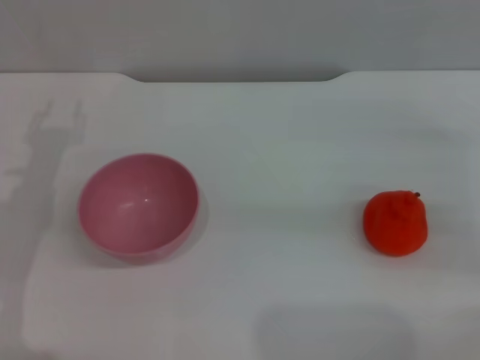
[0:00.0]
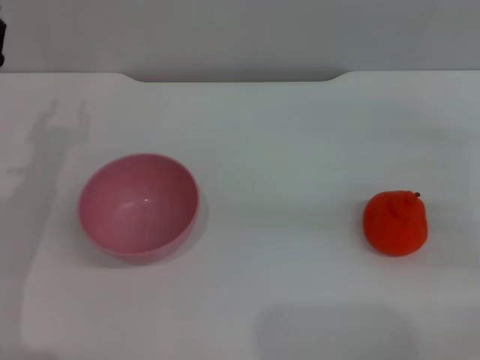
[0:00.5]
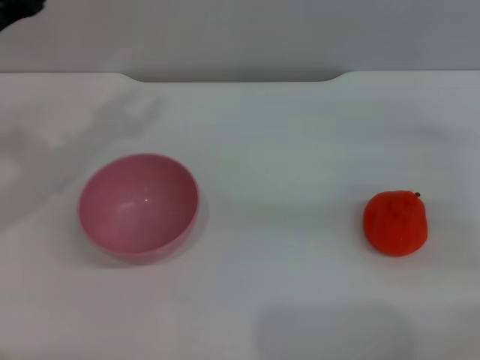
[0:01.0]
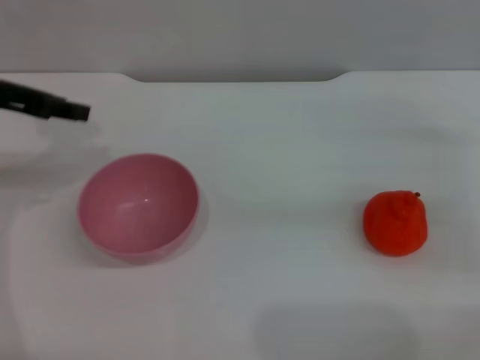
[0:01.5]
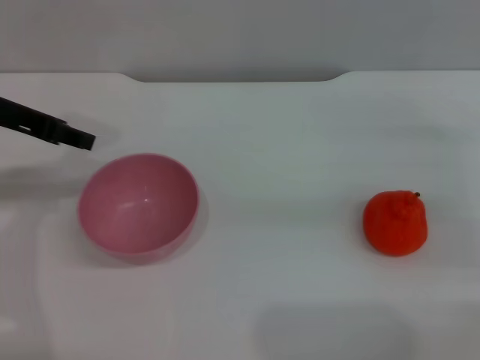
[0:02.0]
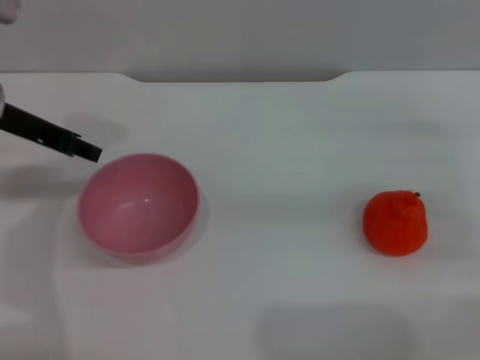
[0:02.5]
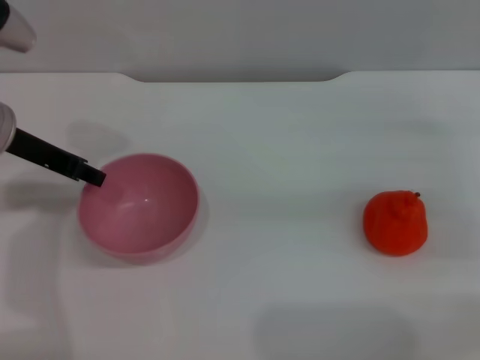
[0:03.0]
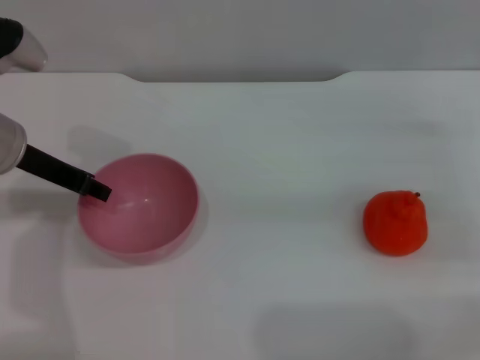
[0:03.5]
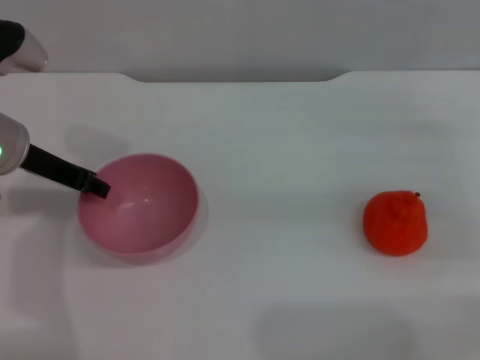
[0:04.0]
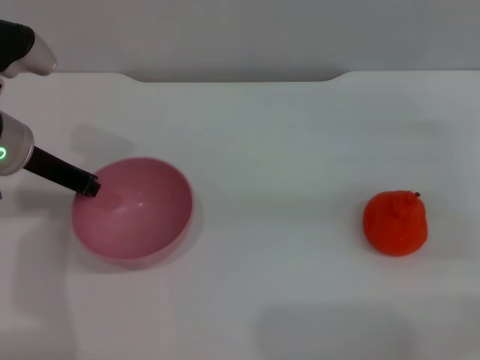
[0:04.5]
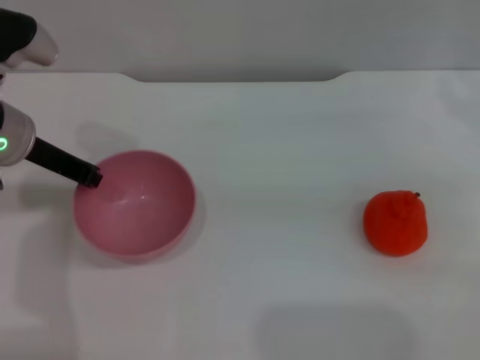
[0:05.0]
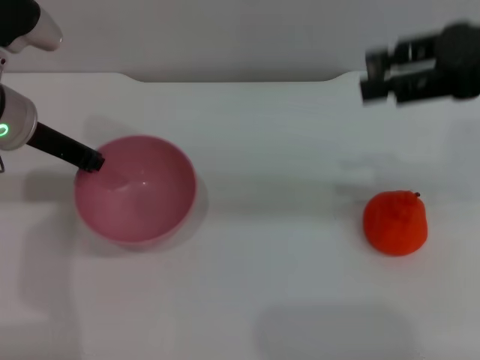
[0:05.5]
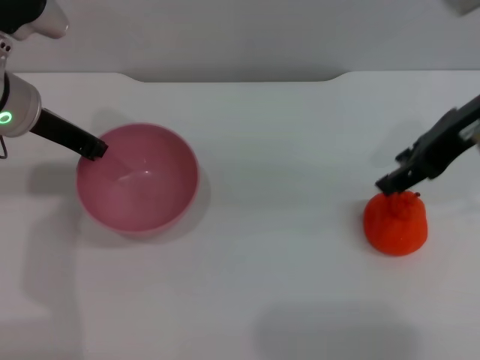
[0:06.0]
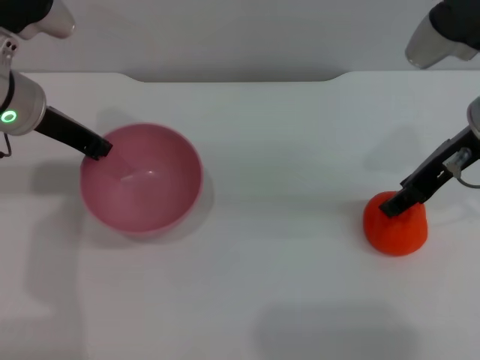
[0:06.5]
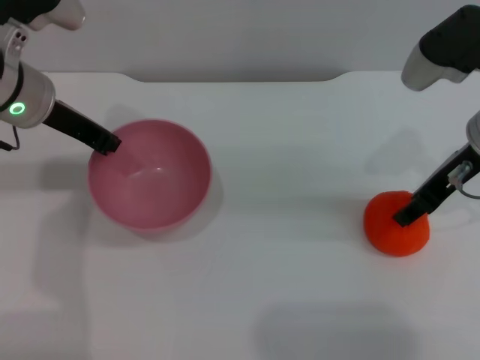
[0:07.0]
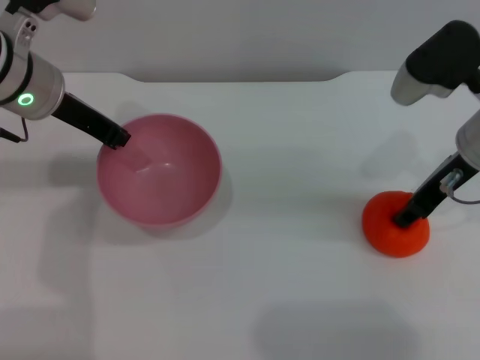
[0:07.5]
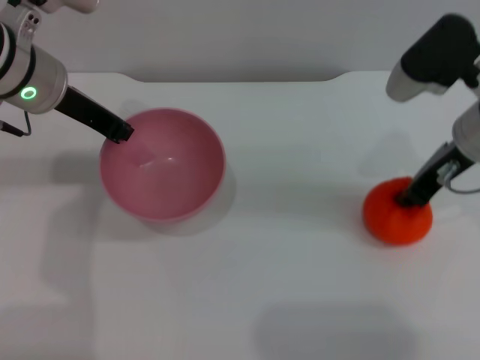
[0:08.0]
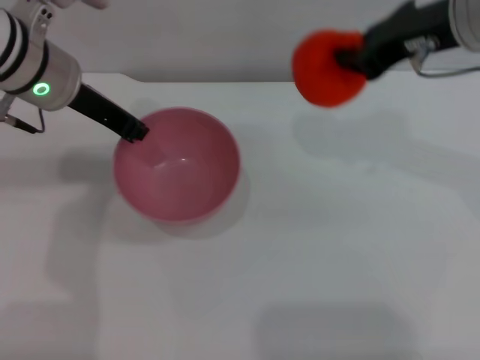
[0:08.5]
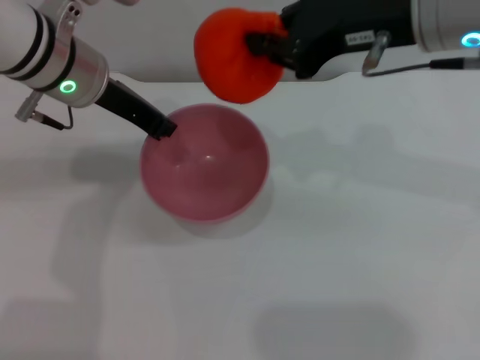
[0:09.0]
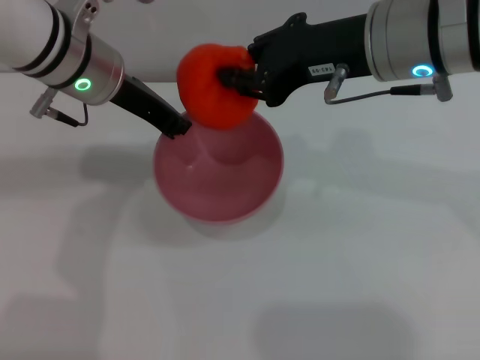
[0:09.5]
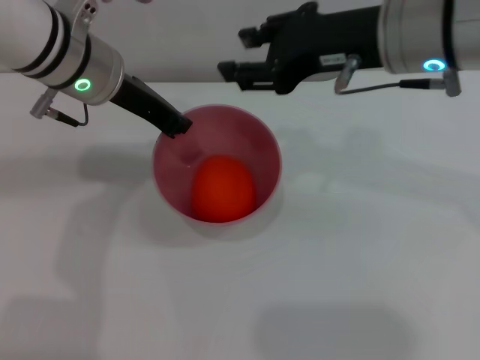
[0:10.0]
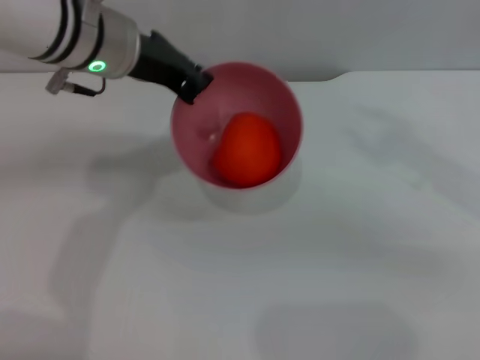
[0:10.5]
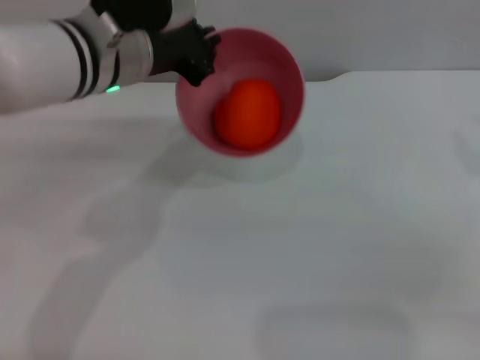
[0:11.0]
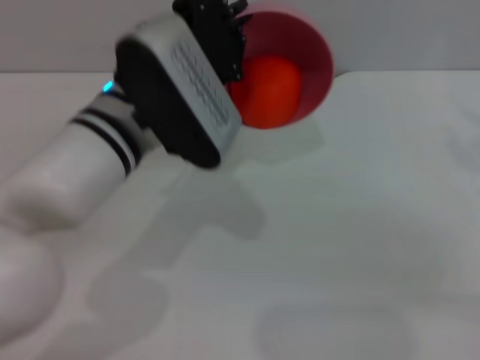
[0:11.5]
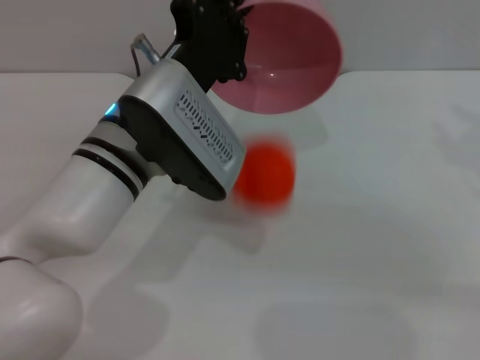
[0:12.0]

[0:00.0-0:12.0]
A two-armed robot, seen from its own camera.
Task of the whole recording: put the orange into the pink bowl and pour it out repeatedly.
Step, 0.0 to 5.5 s: Pick up the bowl with the left gripper.
Step, 6.0 to 8.0 s: Pick up the orange with the right gripper.
Step, 8.5 to 9.5 s: Place the orange into the bowl.
0.0 to 2.0 s: The left gripper is displaced upward by some 15 cm.
2.0 to 4.0 s: The left gripper goes some 5 cm downward.
4.0 to 6.0 s: The left gripper closes its fingers. Meanwhile the right gripper travels upward and to the left by about 20 cm.
6.0 to 8.0 s: The right gripper moves downward, about 10 cm, and closes up.
8.0 to 10.0 s: The right gripper moves upward and to the left, some 10 cm, and opens up.
10.0 to 12.0 s: The right gripper shifts some 15 cm to the right; the left gripper heads backward, to the right and downward, covering approximately 10 cm.

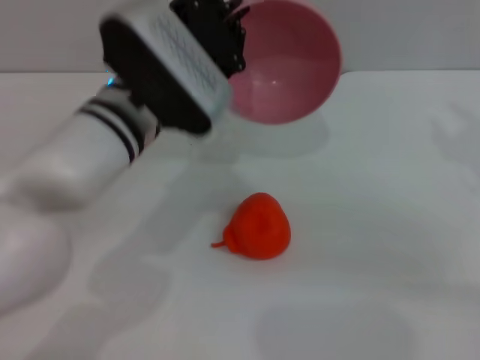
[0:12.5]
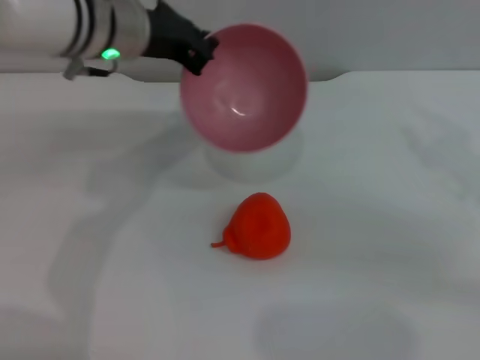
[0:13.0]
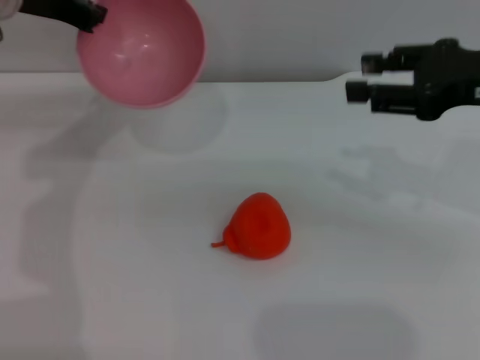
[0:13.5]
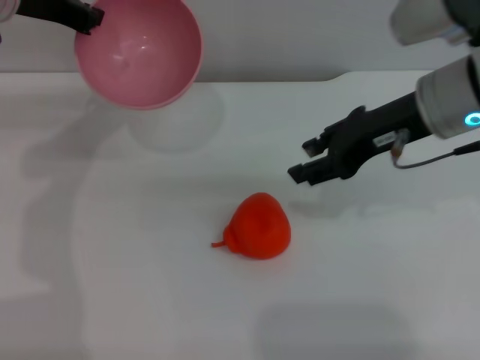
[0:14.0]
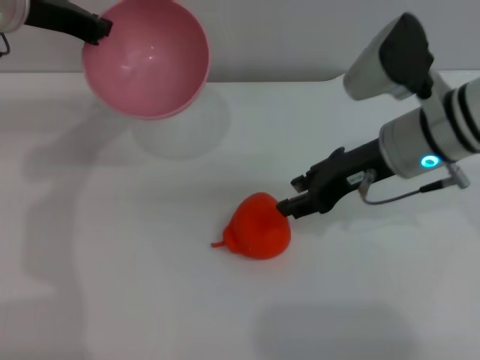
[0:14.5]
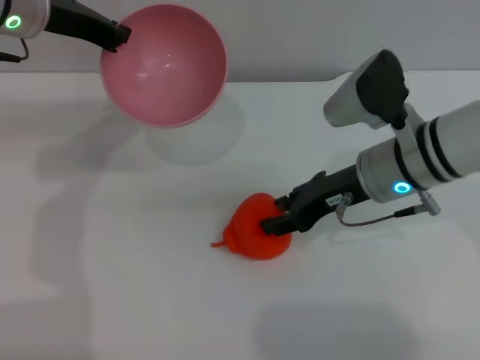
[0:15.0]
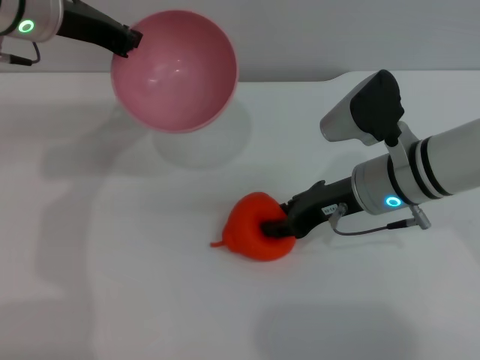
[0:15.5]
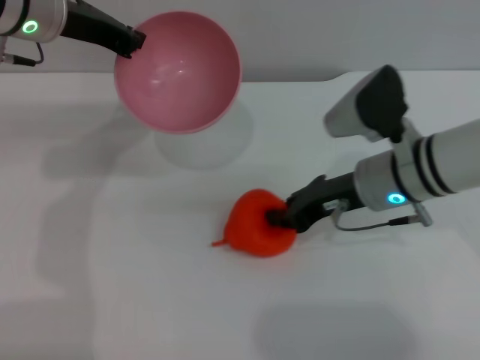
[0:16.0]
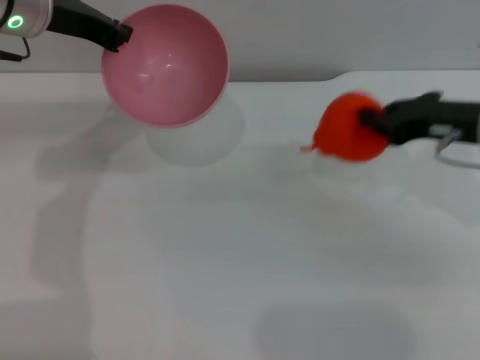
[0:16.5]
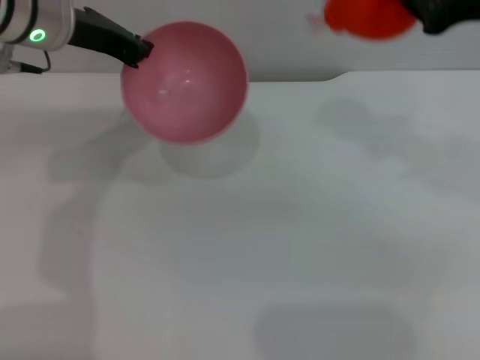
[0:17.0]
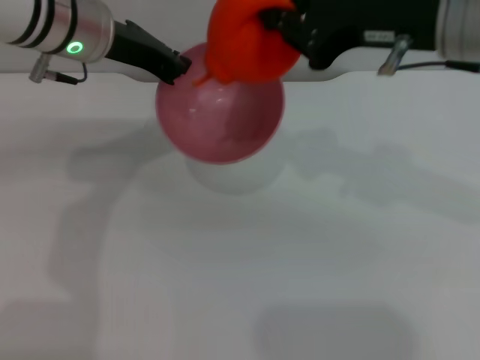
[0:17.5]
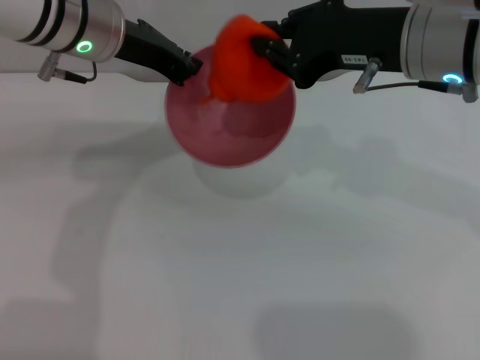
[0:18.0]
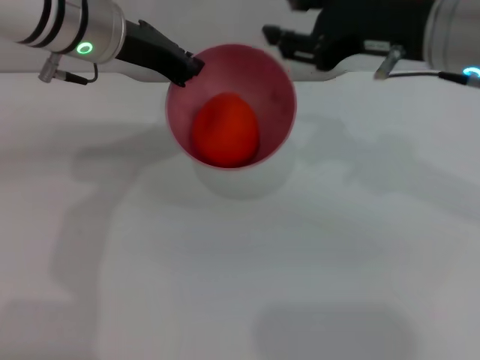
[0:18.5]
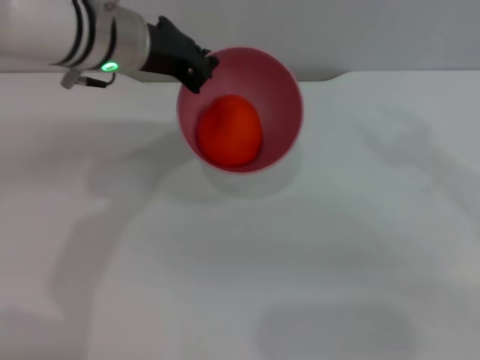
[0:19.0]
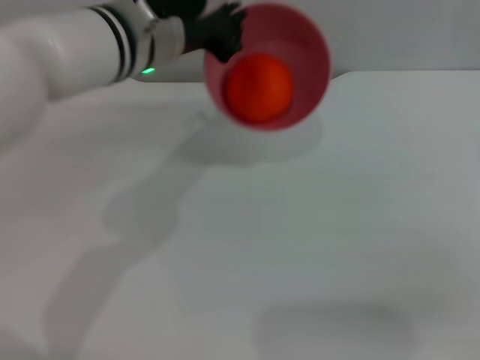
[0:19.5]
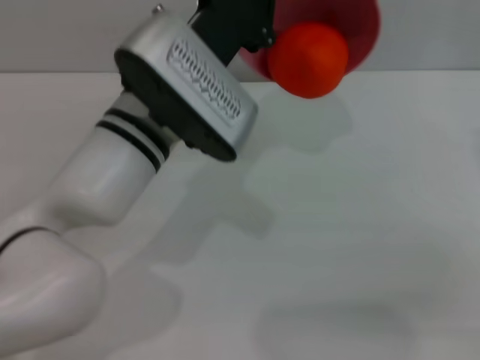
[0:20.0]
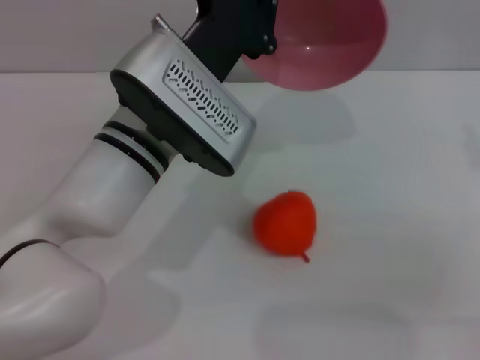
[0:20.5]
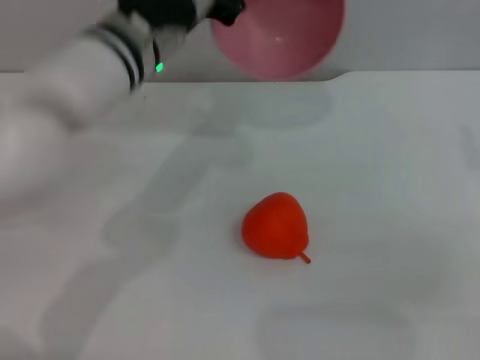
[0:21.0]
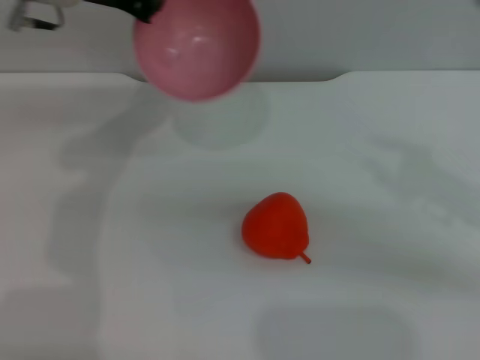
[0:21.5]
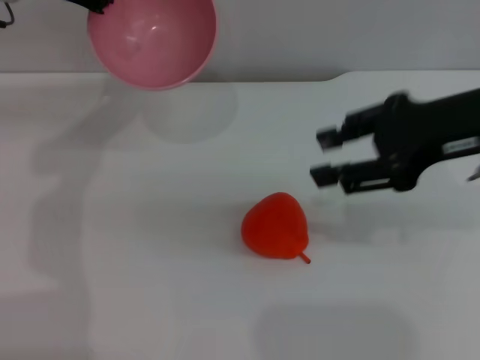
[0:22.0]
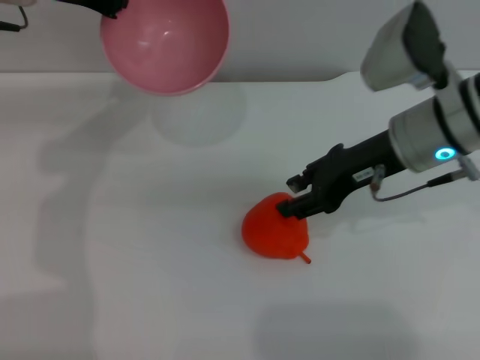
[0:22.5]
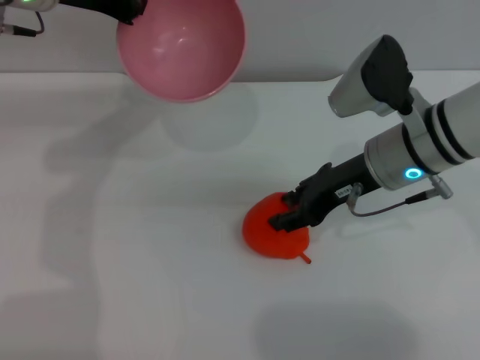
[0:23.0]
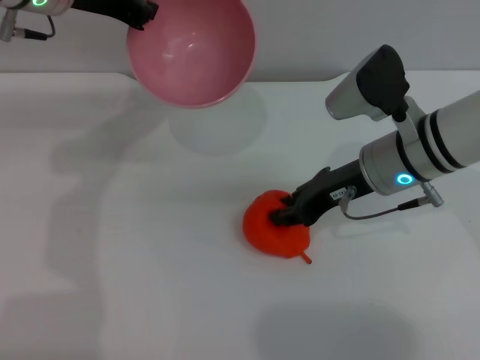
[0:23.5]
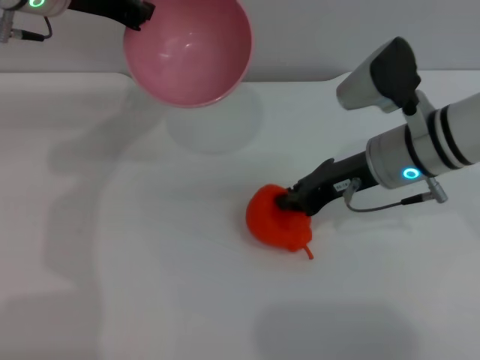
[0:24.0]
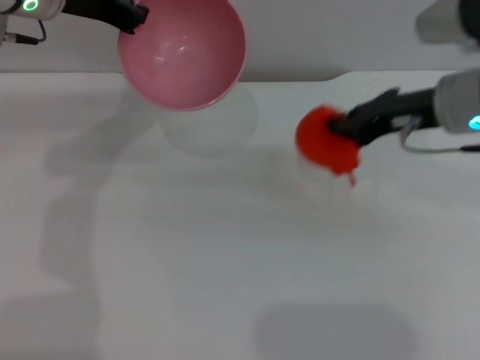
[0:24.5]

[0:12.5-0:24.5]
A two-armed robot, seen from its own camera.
Task of the whole recording: put the orange into the pink bowl and pour it out repeatedly.
Step, 12.5 to 16.0 s: Pick up the orange with the right gripper.
Step, 16.5 to 18.5 s: Place the orange into the bowl.
Step, 19.0 to 20.5 s: Pour the orange out of the bowl.
Step, 21.0 to 24.0 s: Pick up the orange with the right gripper.
12.5 to 14.5 s: The left gripper heads to the left, forward and upward, covering some 20 cm, while the right gripper is displaced to the left and forward by about 15 cm.
14.5 to 16.5 s: The right gripper travels to the right by approximately 10 cm, and closes its fingers.
16.5 to 18.5 s: The left gripper is displaced to the right by roughly 5 cm; the right gripper shifts roughly 10 cm upward and to the left, and opens its fingers.
18.5 to 20.5 s: The right gripper travels to the right, downward and backward by roughly 15 cm; the left gripper moves backward, to the right and downward, about 15 cm.
20.5 to 22.5 s: The left gripper travels to the left, forward and upward by approximately 20 cm, while the right gripper travels to the left and forward by roughly 15 cm.
22.5 to 24.5 s: The right gripper closes up.

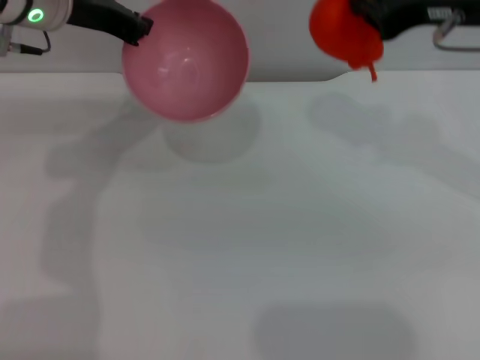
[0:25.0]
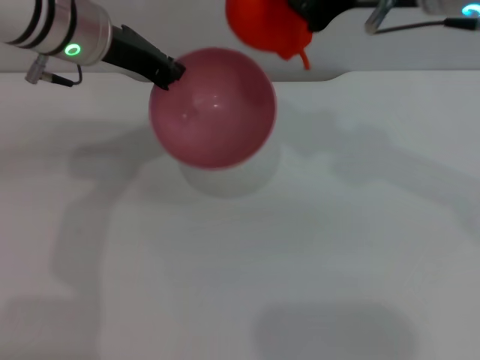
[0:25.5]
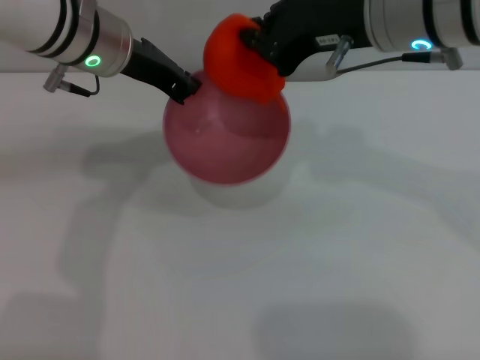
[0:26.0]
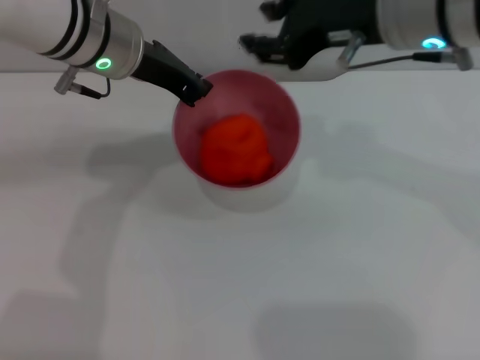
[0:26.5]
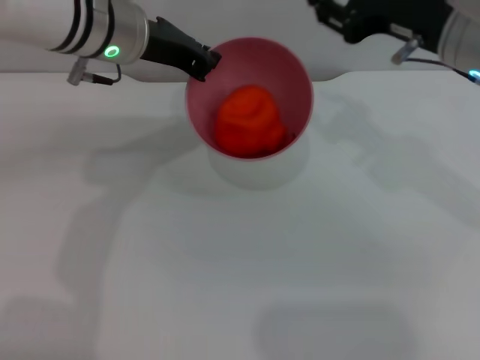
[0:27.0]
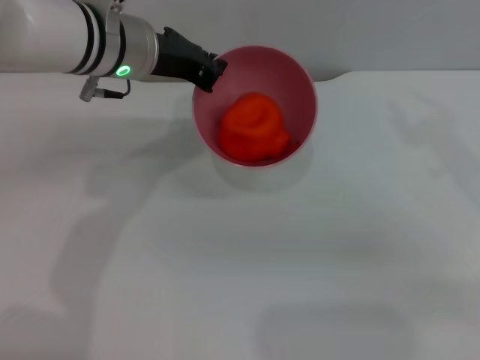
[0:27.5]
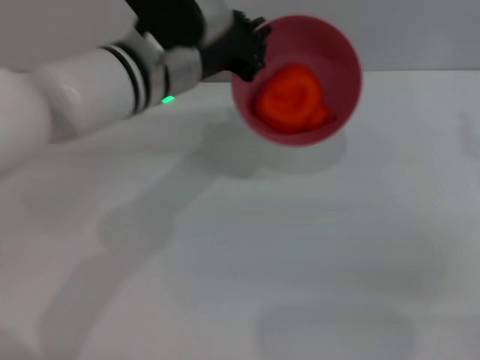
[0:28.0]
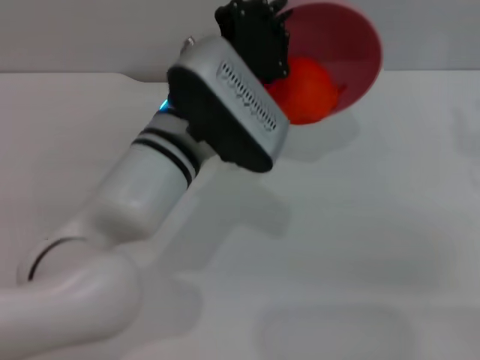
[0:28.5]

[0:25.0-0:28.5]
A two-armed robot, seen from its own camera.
Task of the whole recording: put the orange into the pink bowl and pour it out repeatedly.
Step, 25.0 to 26.5 s: Place the orange into the bowl.
25.0 to 27.0 s: The right gripper goes some 5 cm downward, and opens; the left gripper travels to the right by approximately 5 cm.
27.0 to 28.5 s: The left gripper moves backward, to the right and downward, approximately 15 cm. The right gripper moves to the right, backward and downward, about 15 cm.
